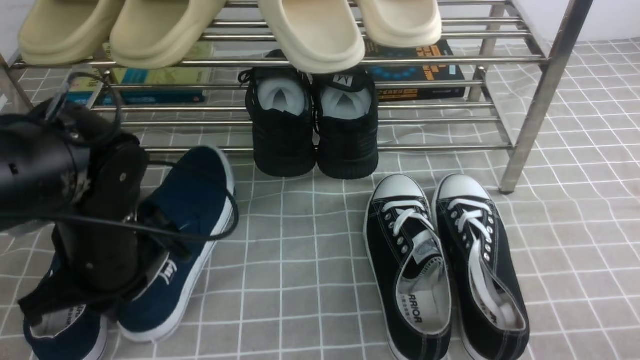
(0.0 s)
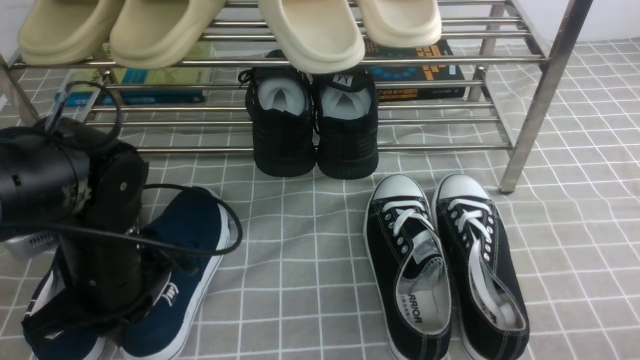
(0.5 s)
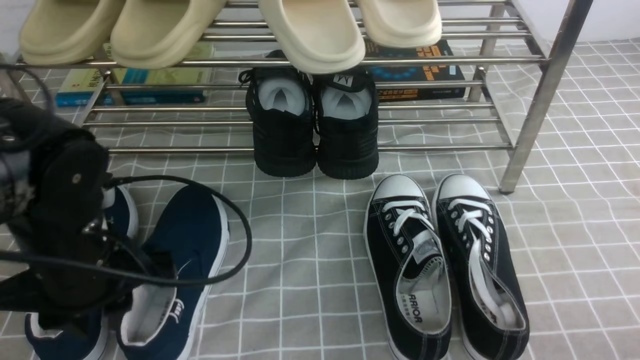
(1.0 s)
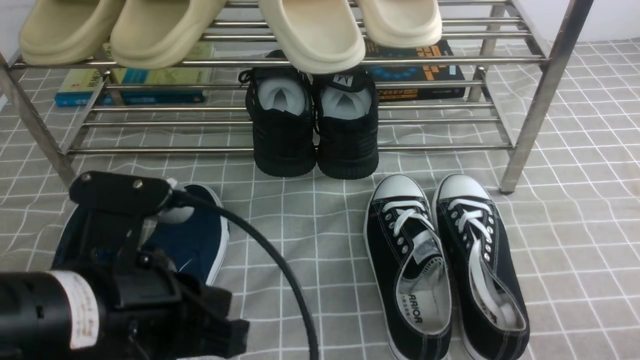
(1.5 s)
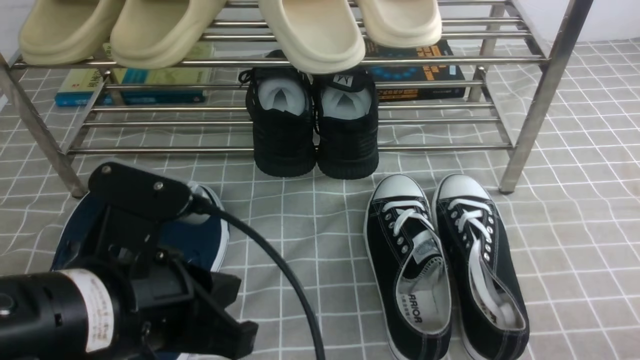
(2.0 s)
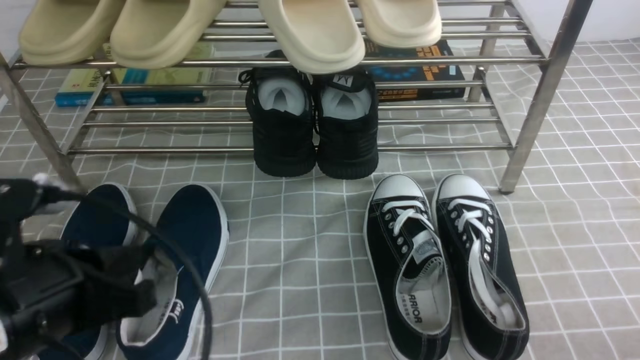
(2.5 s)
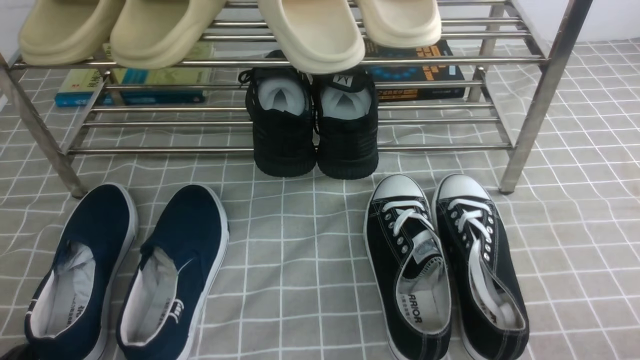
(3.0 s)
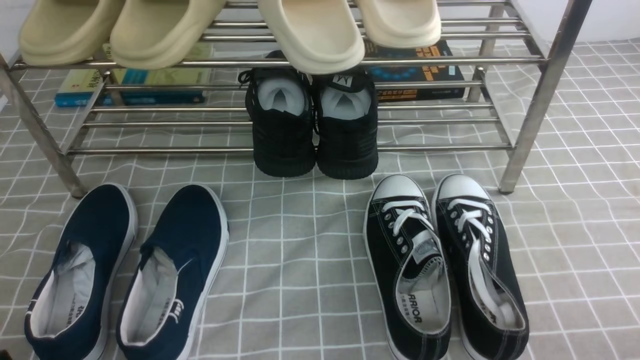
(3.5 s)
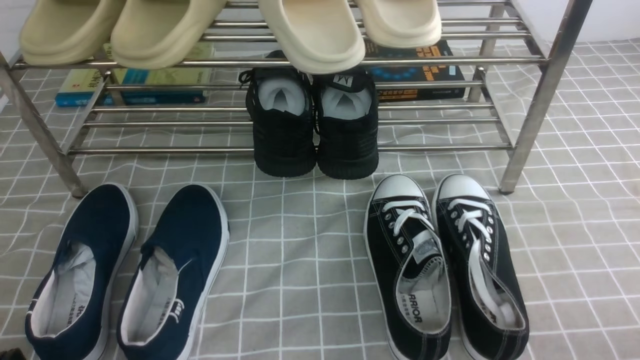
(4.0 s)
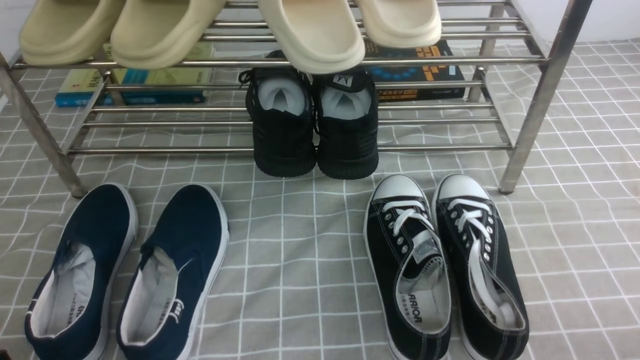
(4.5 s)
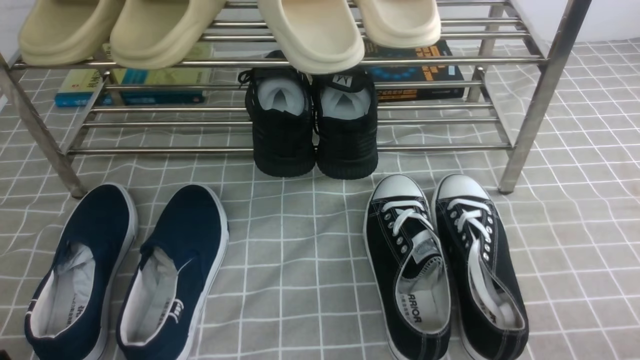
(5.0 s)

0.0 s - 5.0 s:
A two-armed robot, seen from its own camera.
Step, 0.0 s - 1.0 s: Use your left arm to remove the clamped shoe from the shoe rack and put it down.
0.0 s - 2.5 s: The left gripper is displaced backward by roughly 10 cm.
2.5 s - 5.0 s: The left gripper moves downward, backward and to the left, roughly 15 cm.

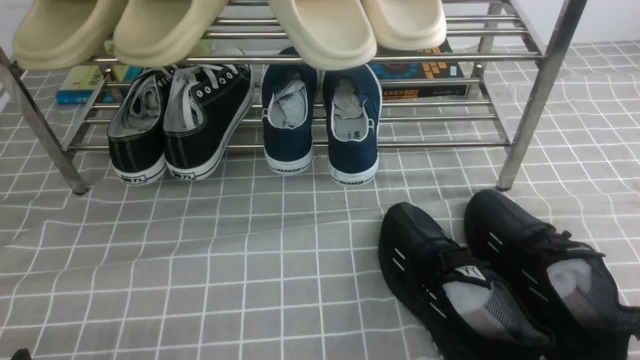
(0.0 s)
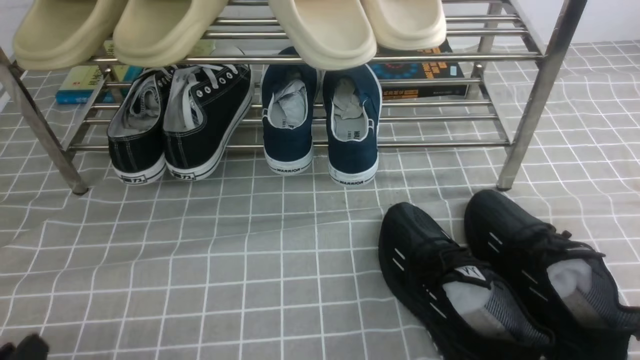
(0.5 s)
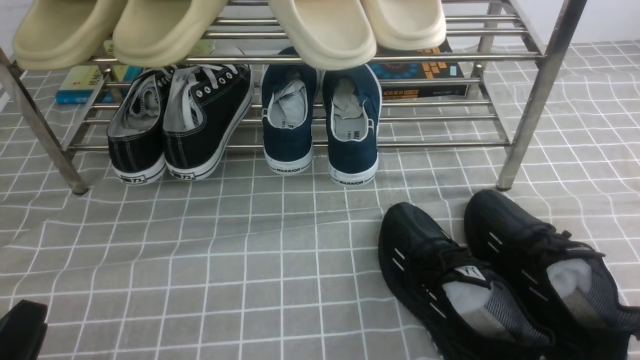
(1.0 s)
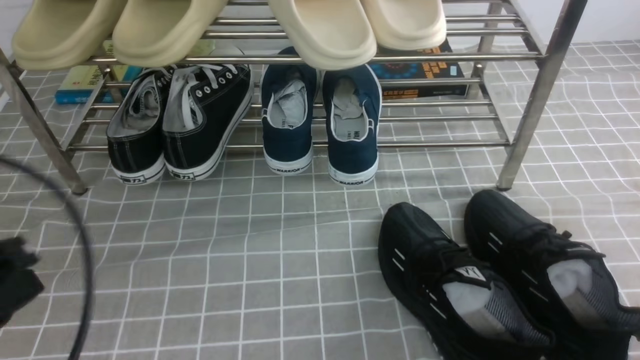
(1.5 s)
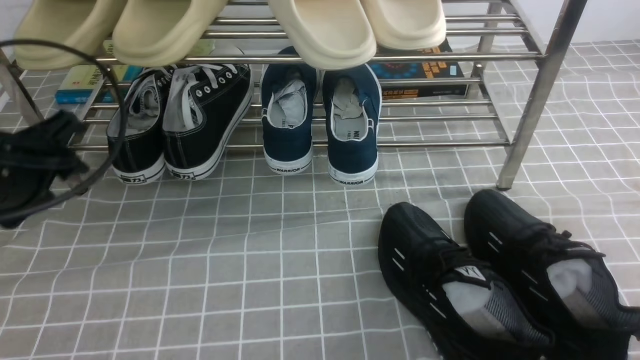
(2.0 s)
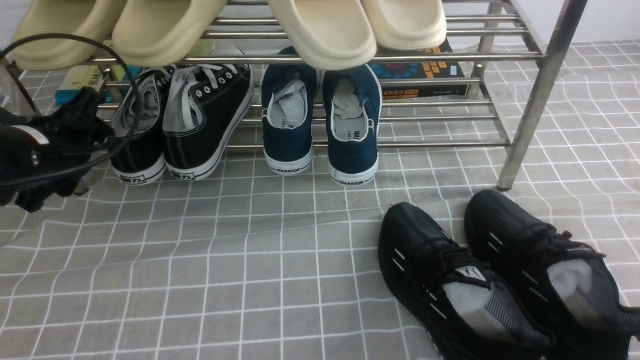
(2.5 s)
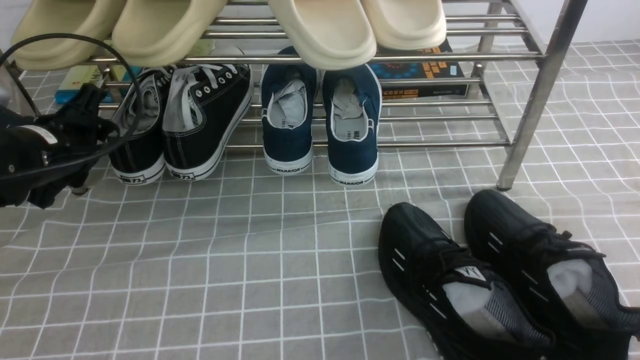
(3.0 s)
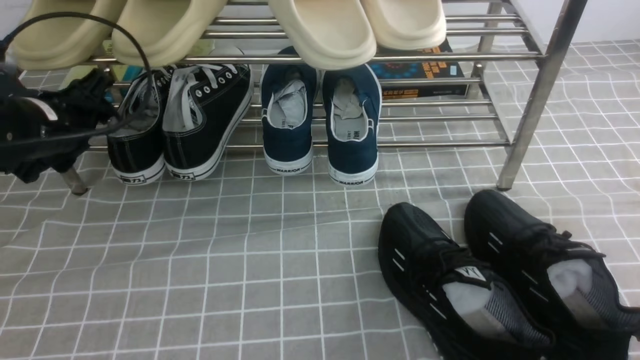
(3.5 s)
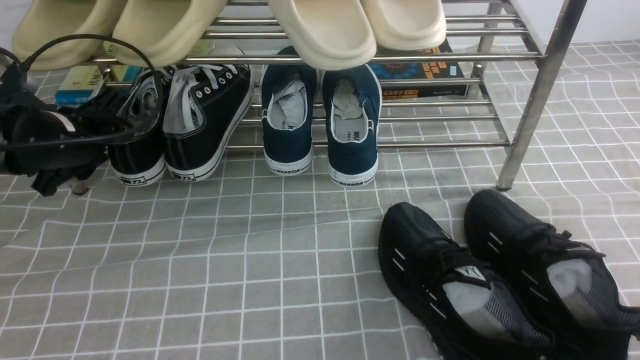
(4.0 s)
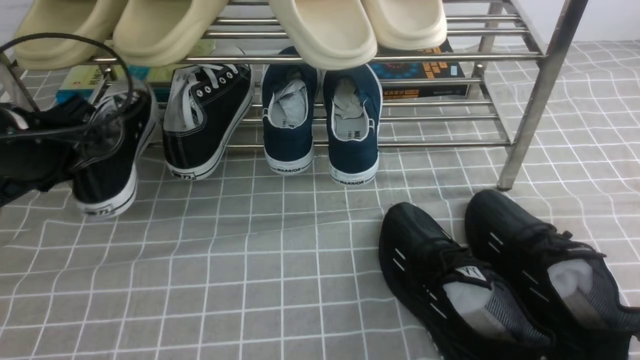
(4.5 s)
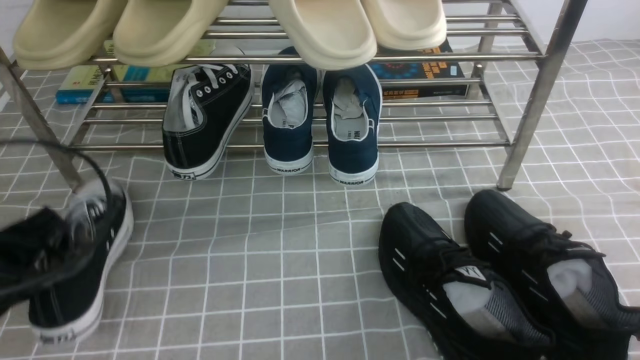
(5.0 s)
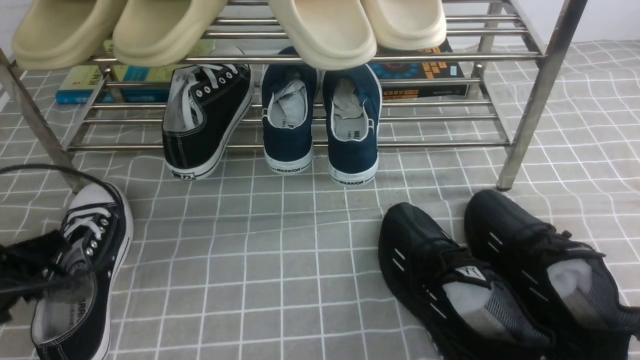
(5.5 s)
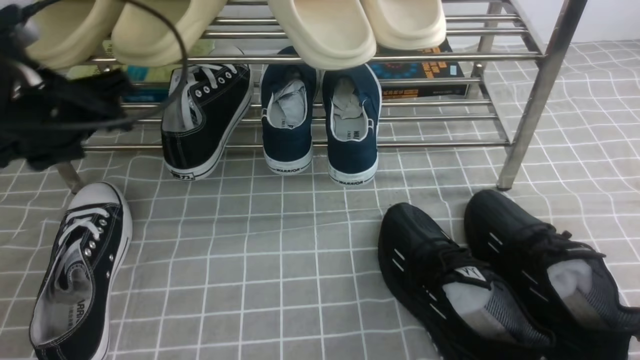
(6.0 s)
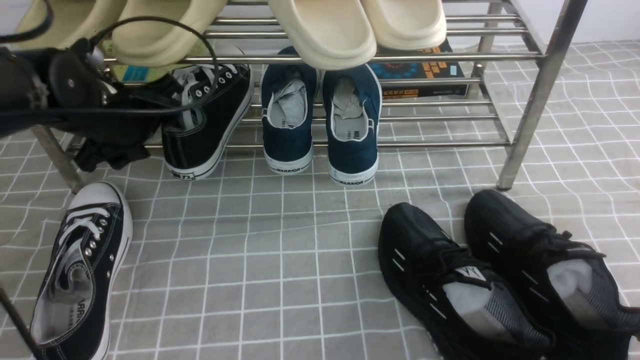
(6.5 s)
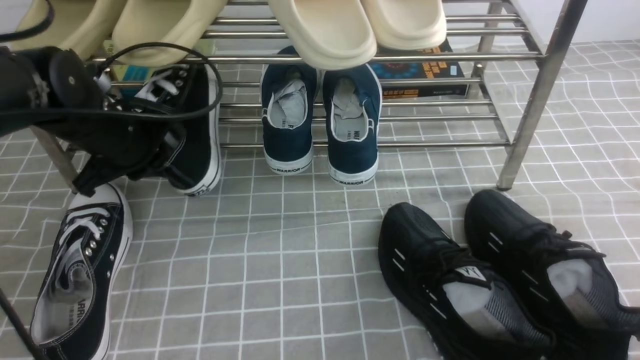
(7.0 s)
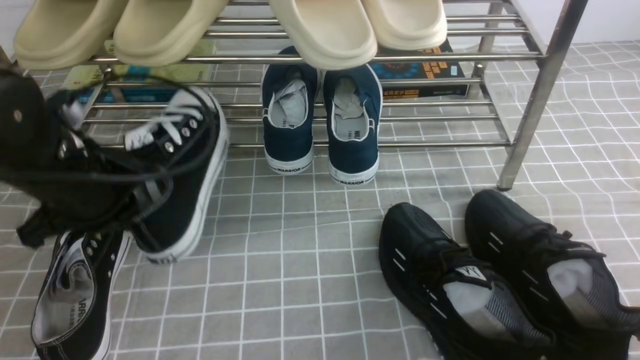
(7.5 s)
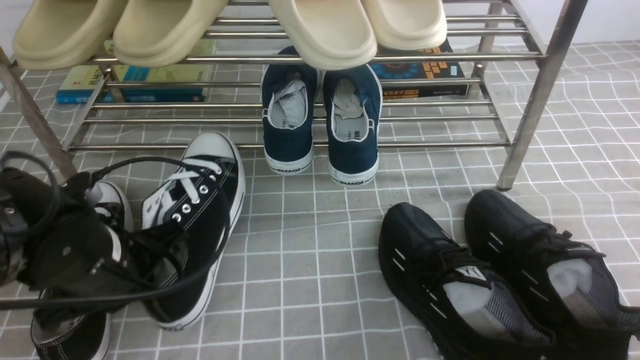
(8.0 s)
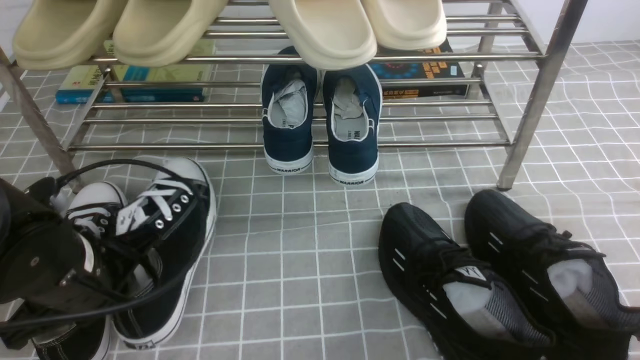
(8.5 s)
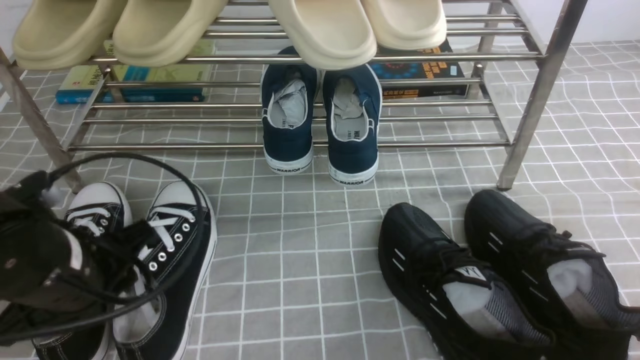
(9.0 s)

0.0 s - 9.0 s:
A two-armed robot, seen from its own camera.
Step, 0.0 s - 4.0 s: use the left arm to clamp a shoe on the left side of the shoe rack.
Step, 4.5 s - 5.5 s: Use your left arm to remove the clamped shoe from the shoe rack and put it down.
Step, 6.0 s - 6.5 s: use the left arm to clamp a shoe on the left side of the shoe rack.
0.0 s - 2.0 s: The left gripper is displaced forward and upward by about 25 cm, and closes, then reopens.
2.0 s - 4.5 s: The left gripper closes its fingers.
4.5 s - 7.0 s: The left gripper goes about 10 cm forward and to the right, and opens, then closes once more.
7.0 s - 9.0 s: The left gripper goes approximately 15 cm backward, and opens its fingers.

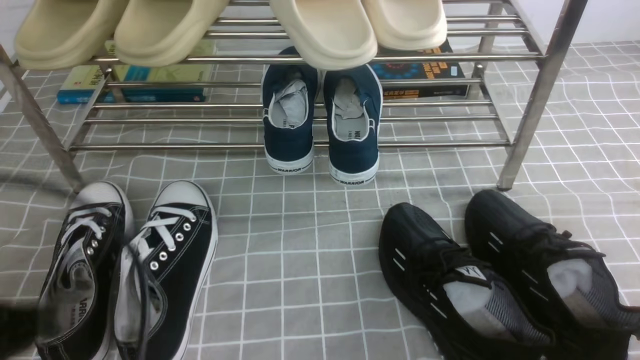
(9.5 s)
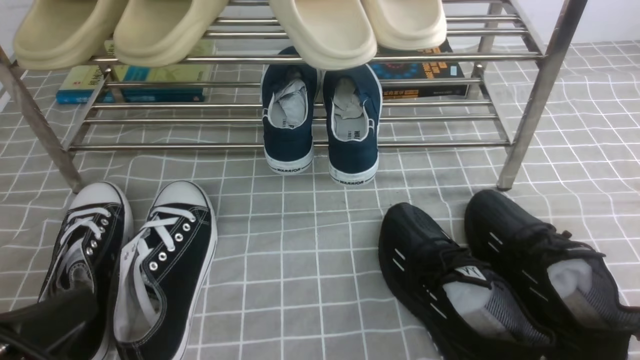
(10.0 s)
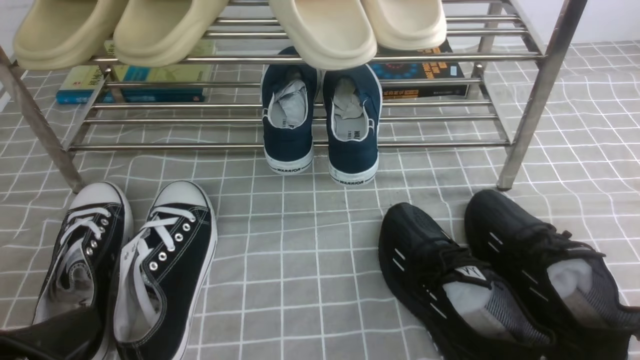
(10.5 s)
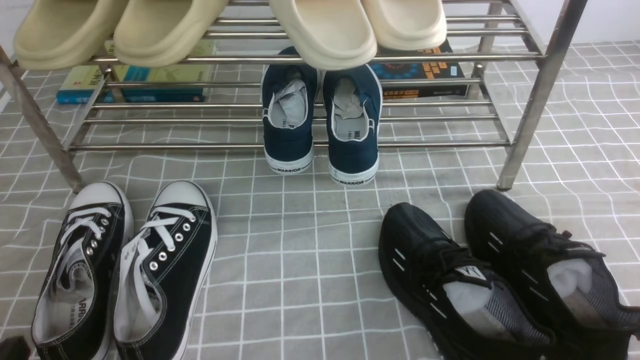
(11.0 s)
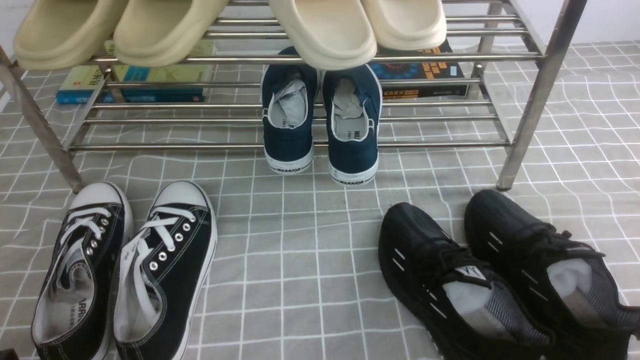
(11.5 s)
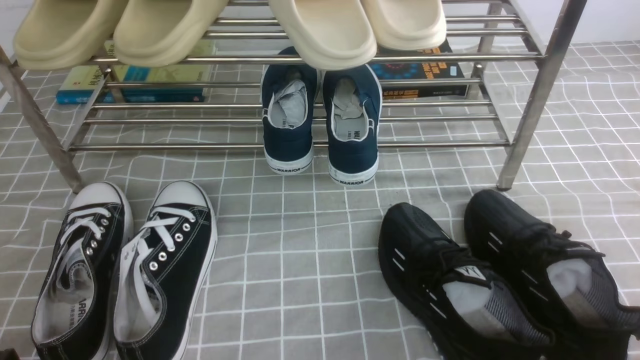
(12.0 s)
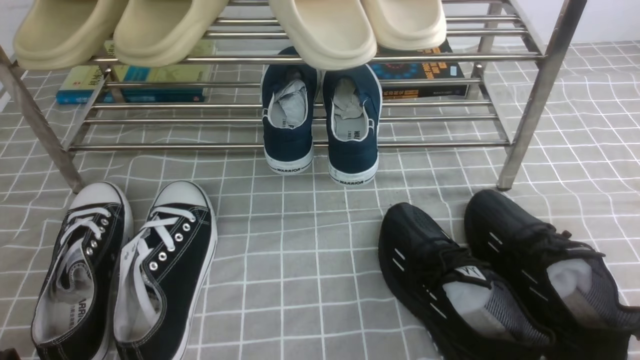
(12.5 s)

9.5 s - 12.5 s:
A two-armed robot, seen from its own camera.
9.5 s - 11.0 s: The left gripper shifts some 10 cm downward.
